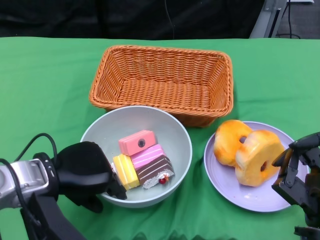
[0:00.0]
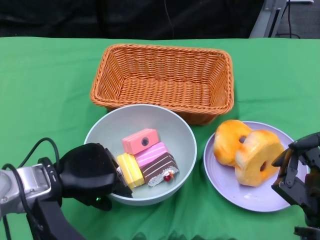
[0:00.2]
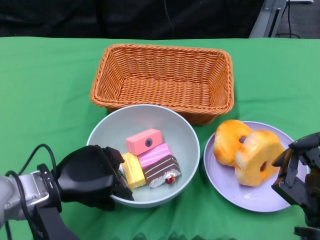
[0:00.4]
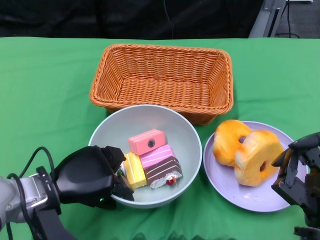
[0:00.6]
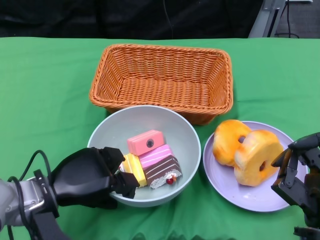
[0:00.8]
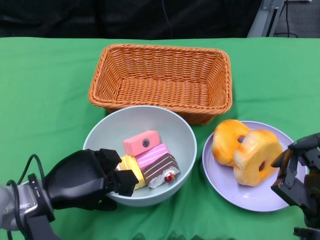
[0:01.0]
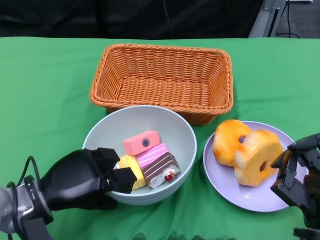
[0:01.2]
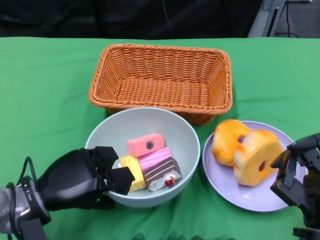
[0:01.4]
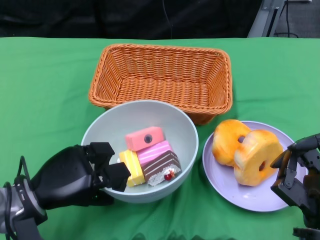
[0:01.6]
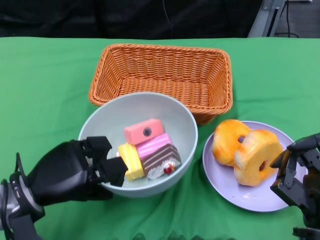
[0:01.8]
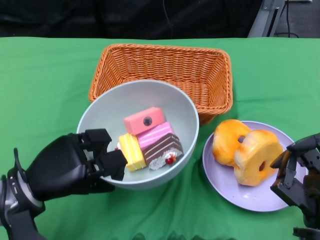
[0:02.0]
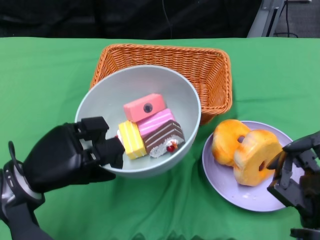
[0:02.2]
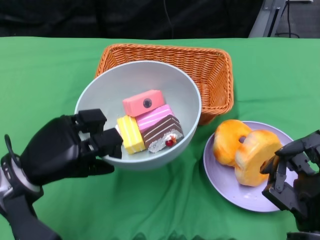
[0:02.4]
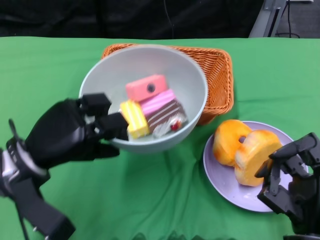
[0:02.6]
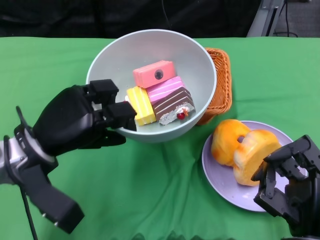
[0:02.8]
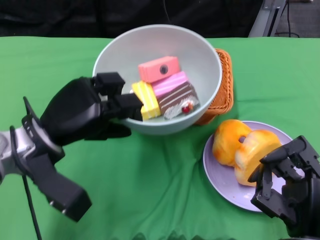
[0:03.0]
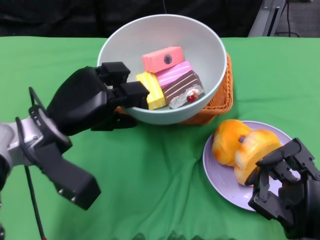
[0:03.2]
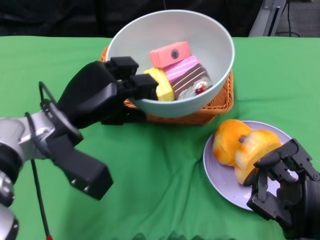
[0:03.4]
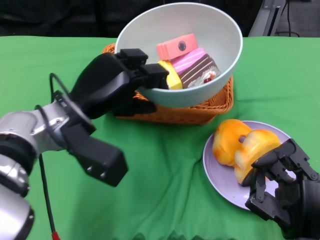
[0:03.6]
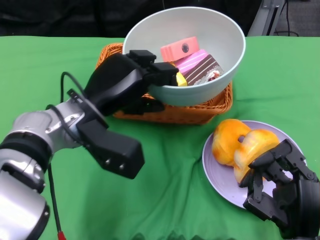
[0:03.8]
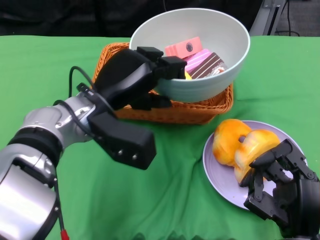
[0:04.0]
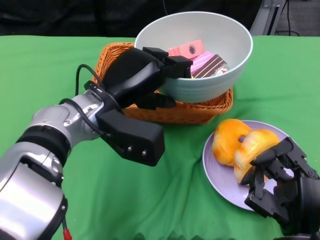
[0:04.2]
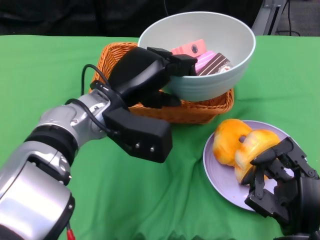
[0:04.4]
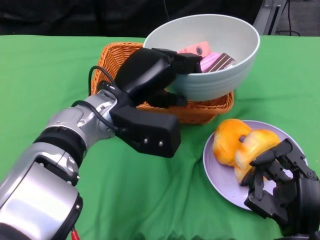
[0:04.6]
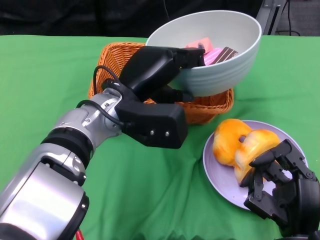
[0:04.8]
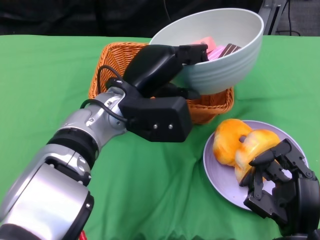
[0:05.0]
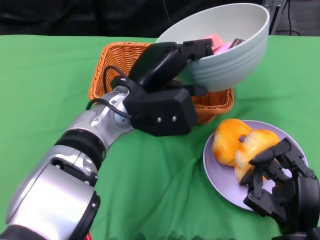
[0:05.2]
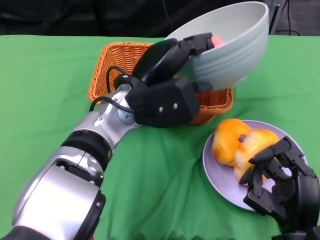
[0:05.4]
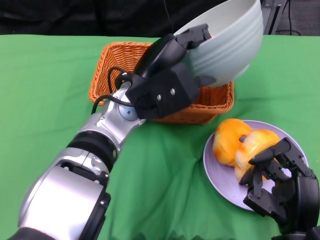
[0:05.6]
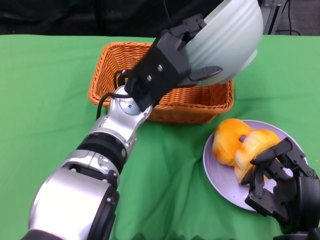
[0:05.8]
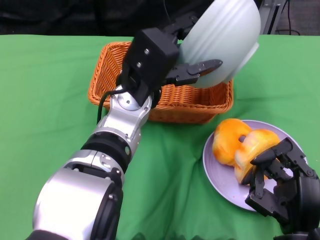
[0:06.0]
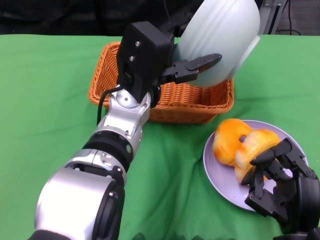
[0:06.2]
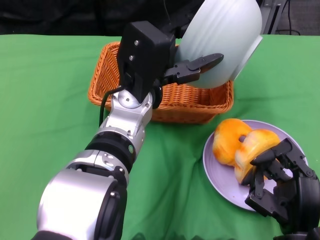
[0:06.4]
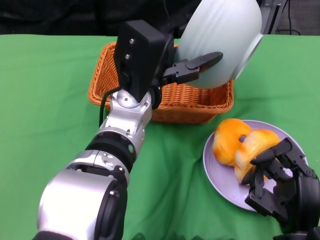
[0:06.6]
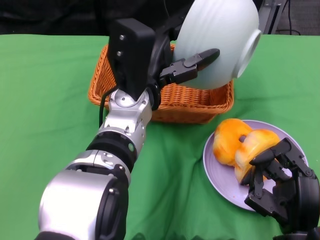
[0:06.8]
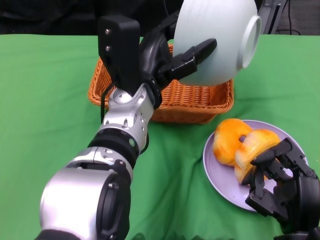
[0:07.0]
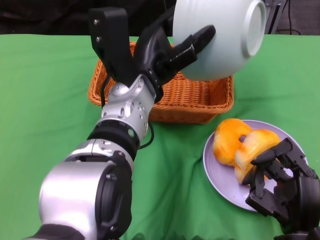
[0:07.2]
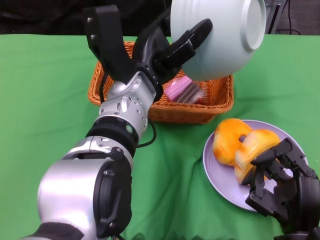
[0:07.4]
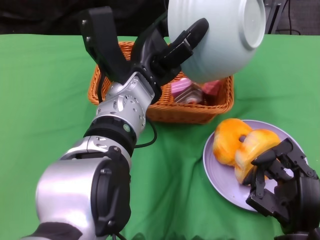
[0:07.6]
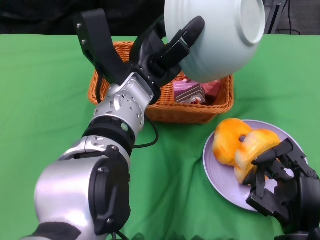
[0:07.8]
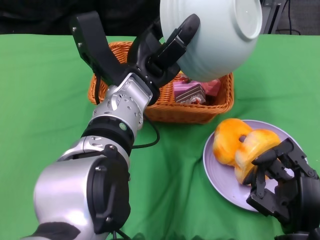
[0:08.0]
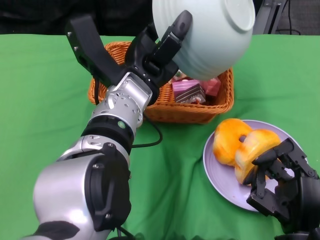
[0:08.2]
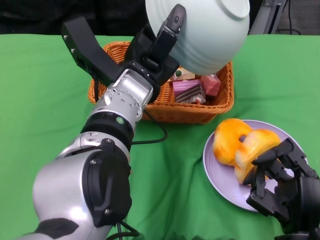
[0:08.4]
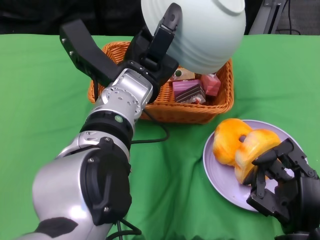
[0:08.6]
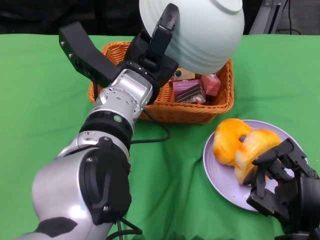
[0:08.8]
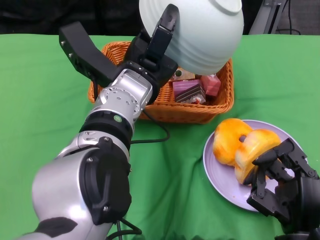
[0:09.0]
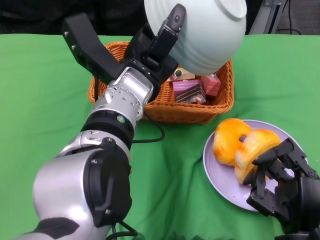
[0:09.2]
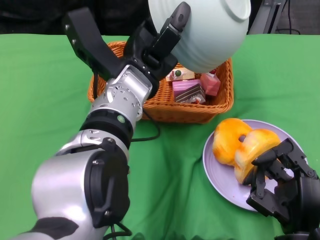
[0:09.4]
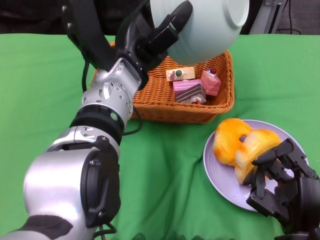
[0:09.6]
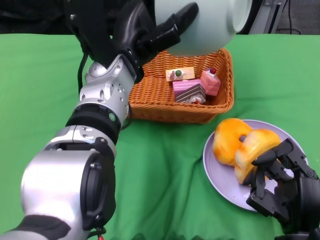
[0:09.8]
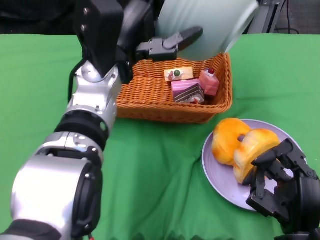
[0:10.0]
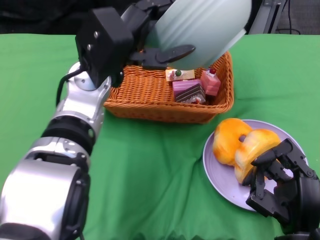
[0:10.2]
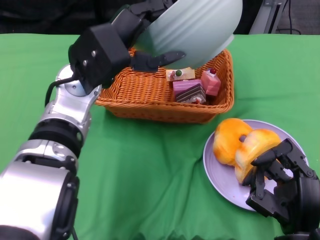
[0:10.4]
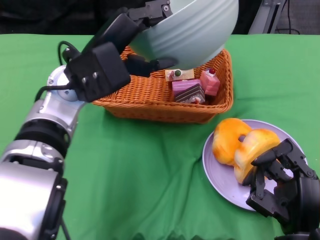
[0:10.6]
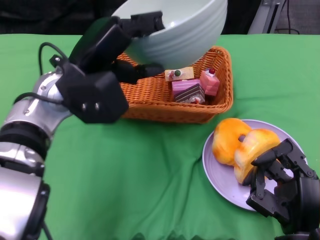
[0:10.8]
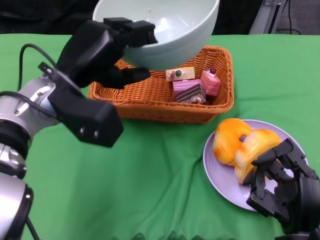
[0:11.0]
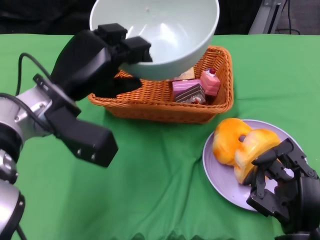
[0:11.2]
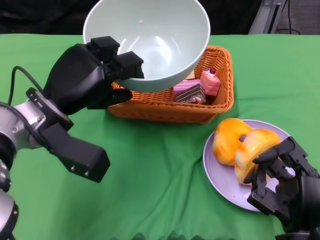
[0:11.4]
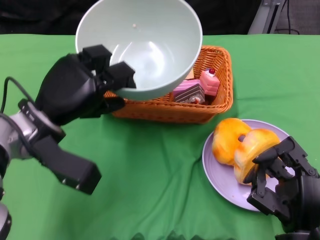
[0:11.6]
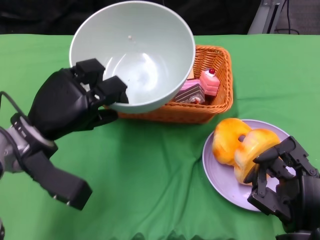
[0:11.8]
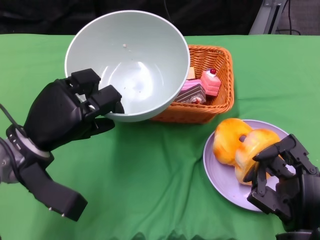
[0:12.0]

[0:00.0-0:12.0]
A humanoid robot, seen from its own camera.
Step, 1.4 to 8.2 s: Pour the cake into the basket with the left gripper.
0.0 to 1.6 s: The left hand ends up some 5 cm from where it was.
1.6 to 3.0 s: The left hand moves upward and forward, some 10 cm.
3.0 to 4.4 s: The left hand goes about 10 cm to the right.
9.0 to 10.4 s: The left hand shifts roughly 5 cm to the left.
10.4 to 12.0 s: The left hand travels to the left and downward by approximately 15 cm.

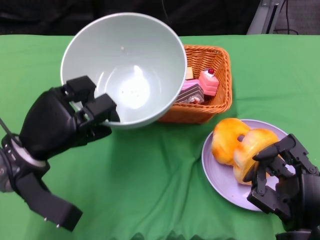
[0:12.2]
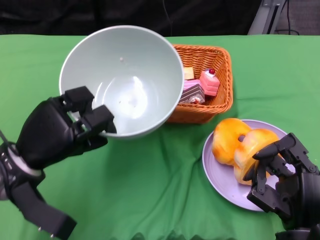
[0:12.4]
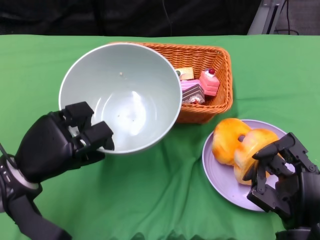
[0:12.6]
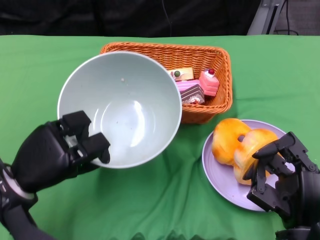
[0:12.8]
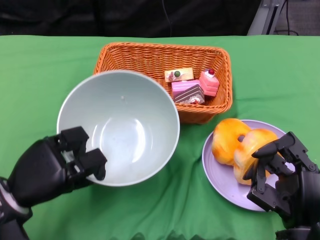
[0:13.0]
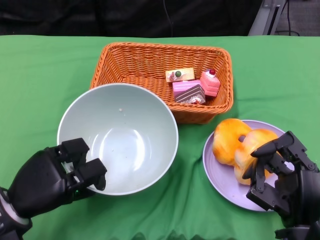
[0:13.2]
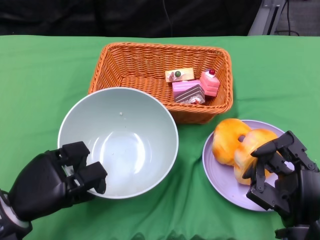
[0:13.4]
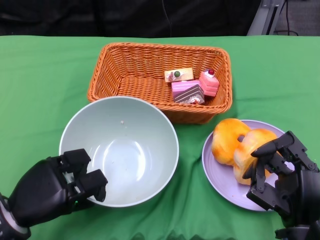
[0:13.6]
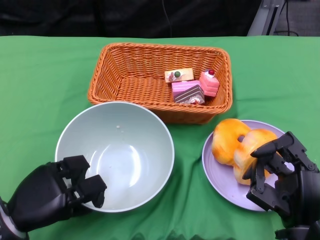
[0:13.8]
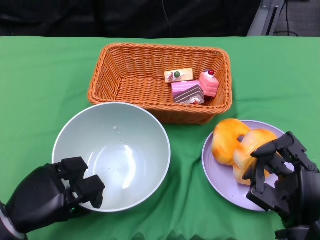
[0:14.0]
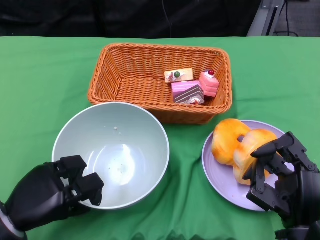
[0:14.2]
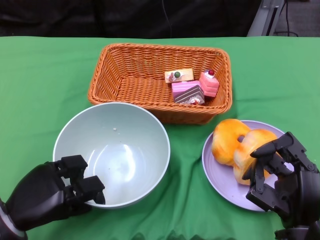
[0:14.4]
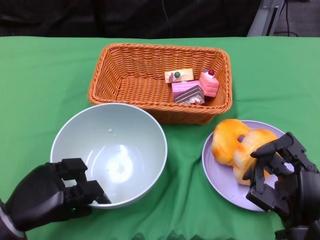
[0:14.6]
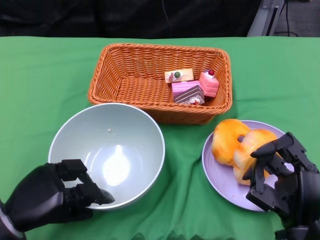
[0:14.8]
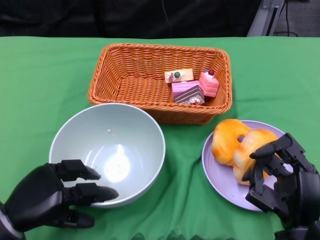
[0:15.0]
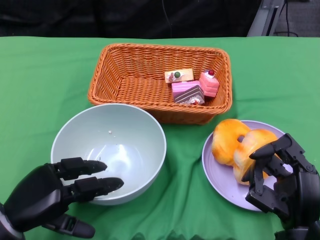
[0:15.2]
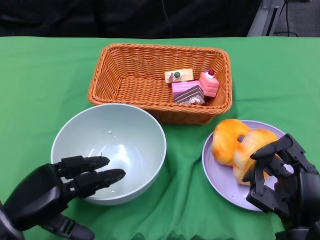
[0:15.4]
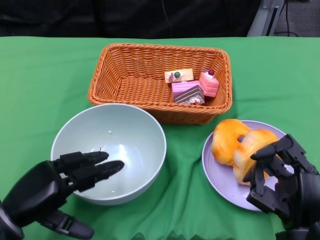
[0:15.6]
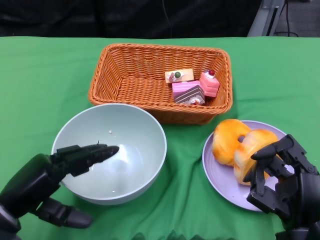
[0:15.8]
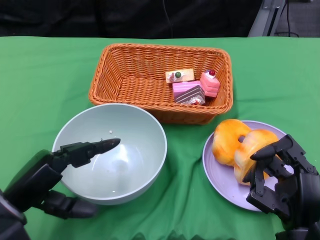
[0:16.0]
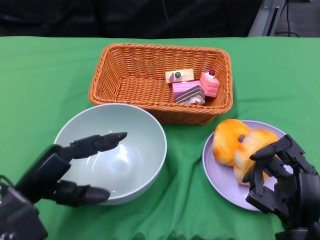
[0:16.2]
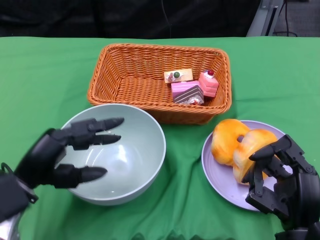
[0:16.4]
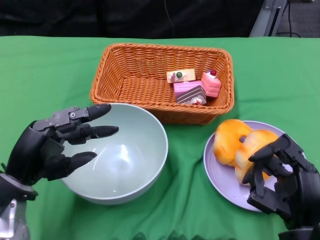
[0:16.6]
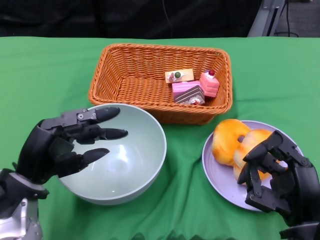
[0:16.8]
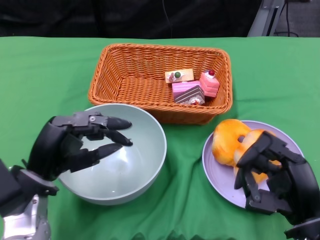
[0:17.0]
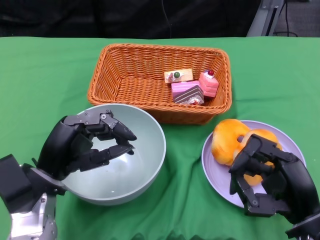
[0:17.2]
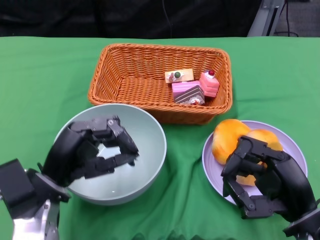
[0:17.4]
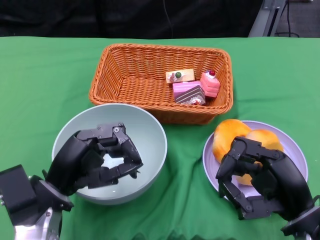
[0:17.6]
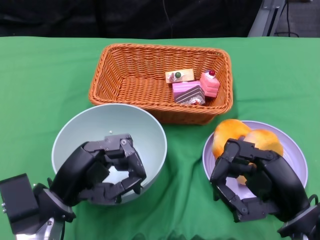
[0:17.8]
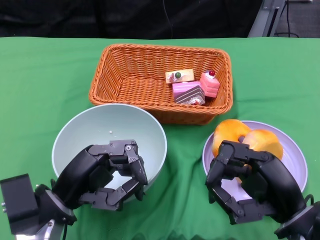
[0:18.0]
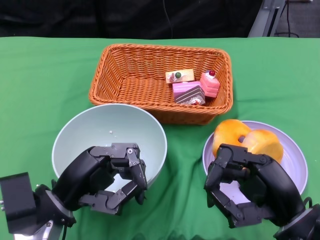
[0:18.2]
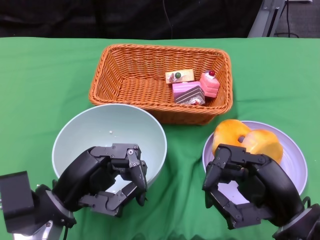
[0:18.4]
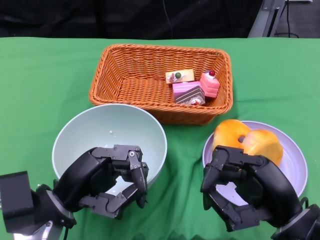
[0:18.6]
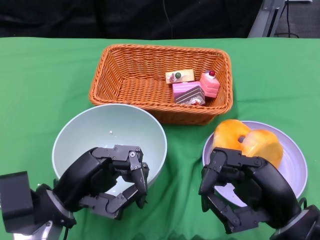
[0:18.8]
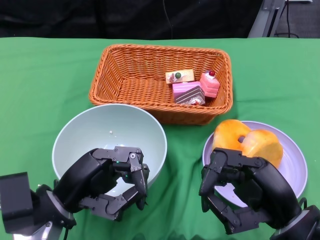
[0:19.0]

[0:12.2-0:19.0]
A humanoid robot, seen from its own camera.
Step, 12.2 to 14.8 s: Place the bowl on the table with the left gripper.
Step, 15.2 to 19.0 s: Grasp the bowl with the left gripper.
12.2 to 13.6 s: The left hand goes some 10 cm backward and downward.
13.6 to 15.0 s: The hands stay close to where they were, moving slightly.

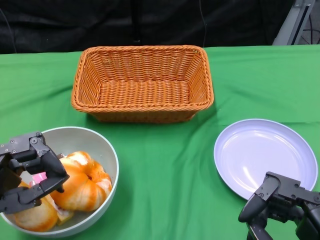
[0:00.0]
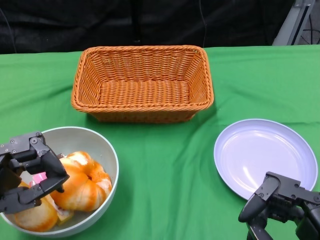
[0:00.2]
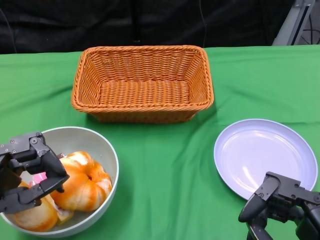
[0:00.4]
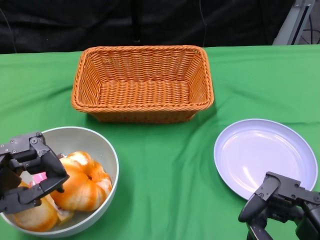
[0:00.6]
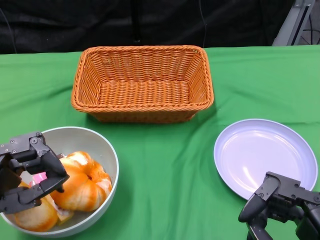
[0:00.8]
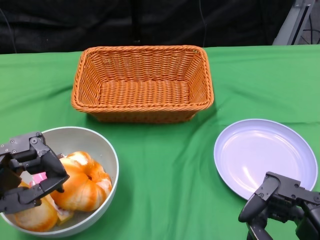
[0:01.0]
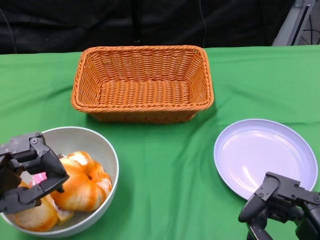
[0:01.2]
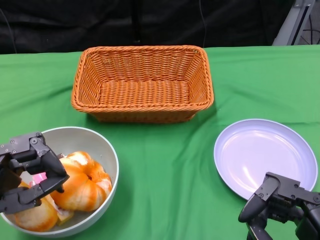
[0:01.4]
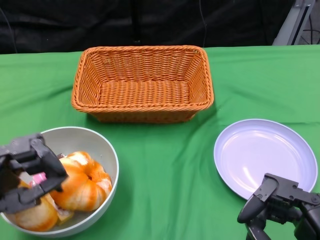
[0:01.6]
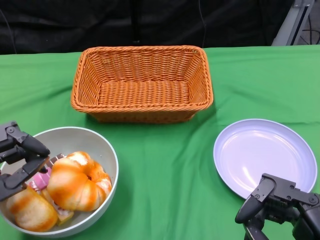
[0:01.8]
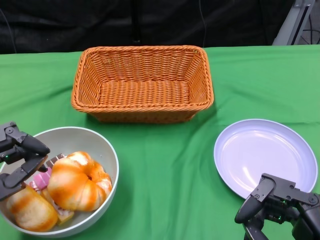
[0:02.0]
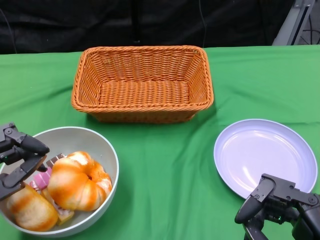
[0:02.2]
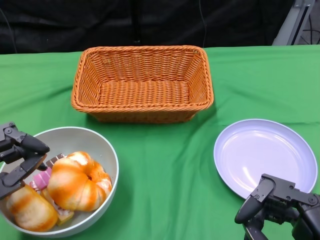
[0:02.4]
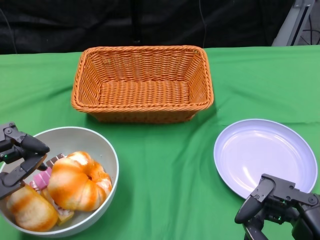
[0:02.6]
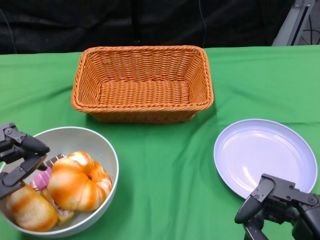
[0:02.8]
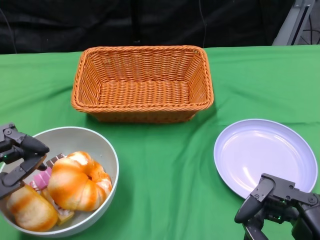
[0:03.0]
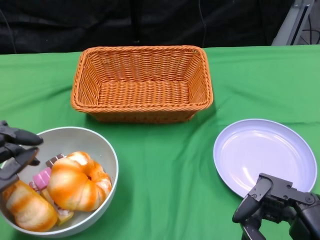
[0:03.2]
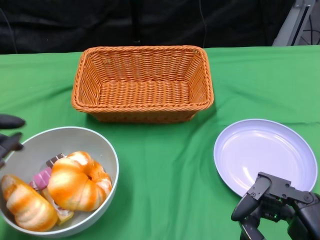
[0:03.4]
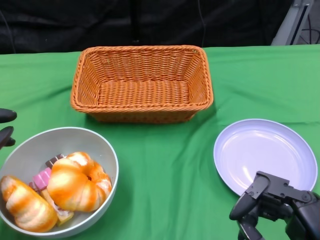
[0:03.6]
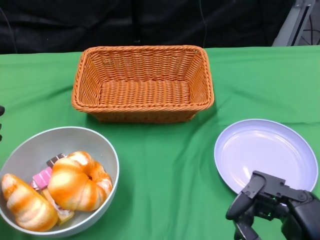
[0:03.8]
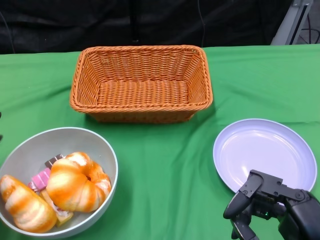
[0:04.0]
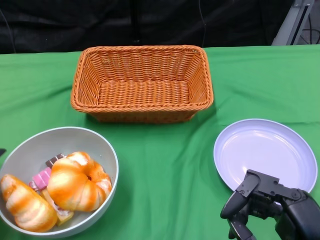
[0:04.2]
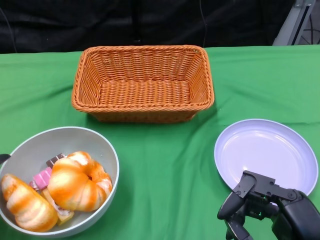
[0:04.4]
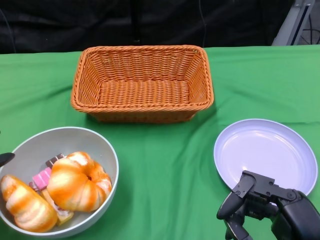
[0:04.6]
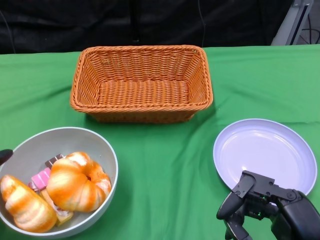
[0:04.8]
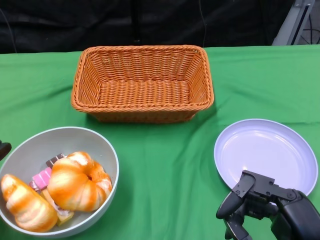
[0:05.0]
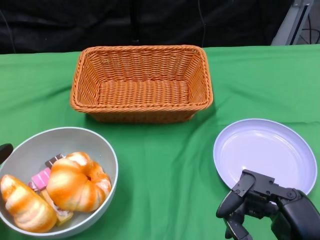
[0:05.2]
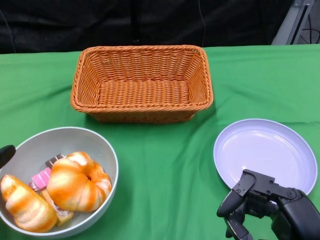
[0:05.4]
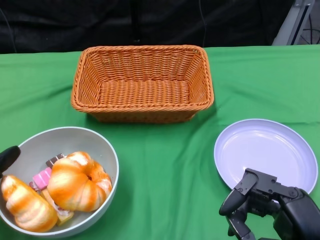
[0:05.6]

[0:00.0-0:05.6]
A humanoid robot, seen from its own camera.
1.4 to 2.8 s: The hands make only small movements.
2.8 to 4.2 s: The left hand ends up roughly 5 cm from where it was.
